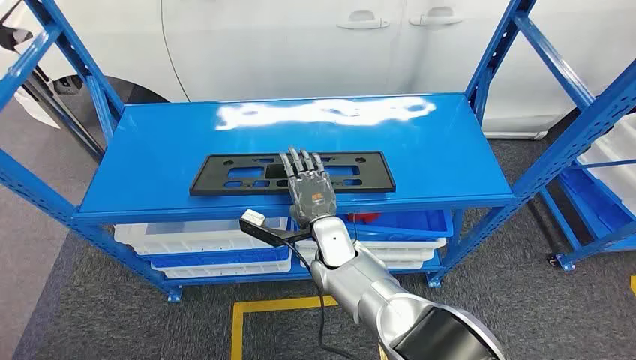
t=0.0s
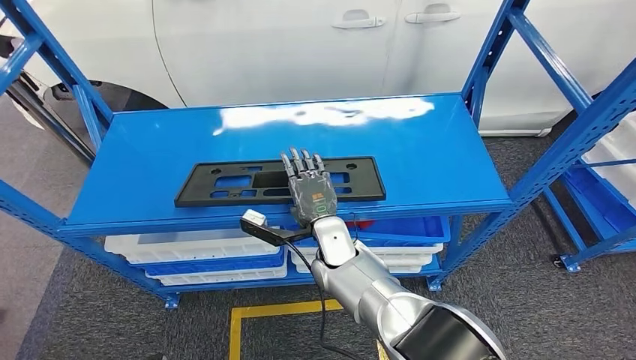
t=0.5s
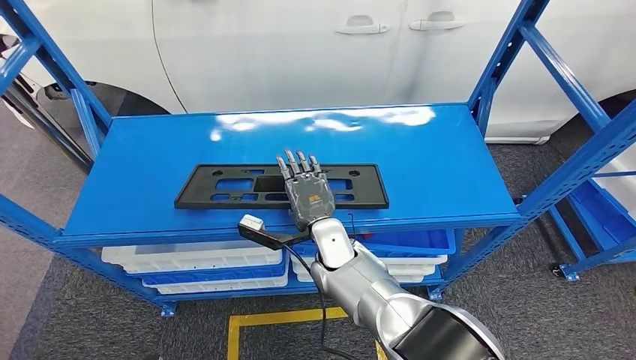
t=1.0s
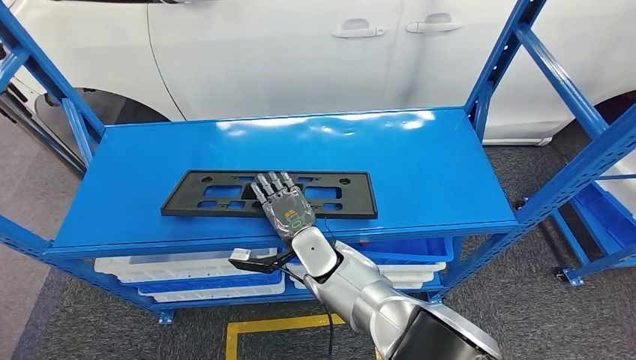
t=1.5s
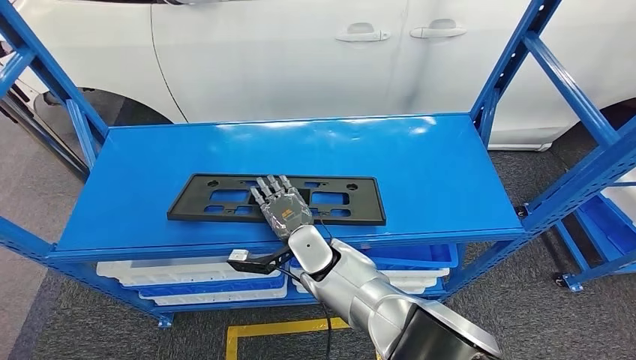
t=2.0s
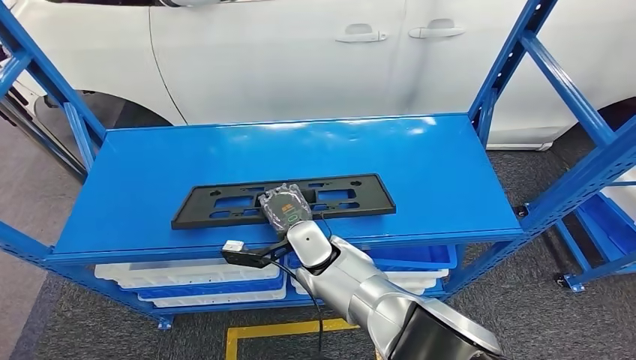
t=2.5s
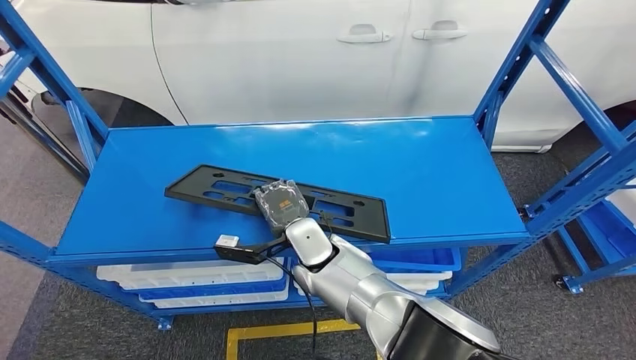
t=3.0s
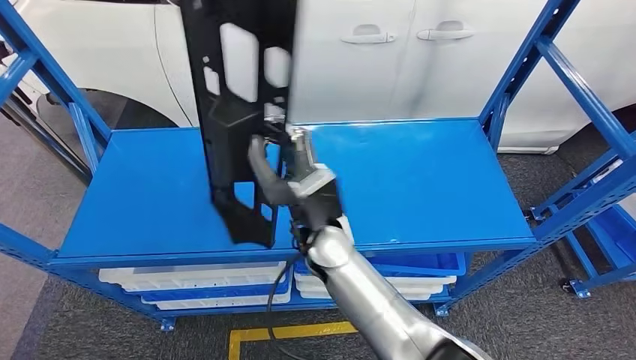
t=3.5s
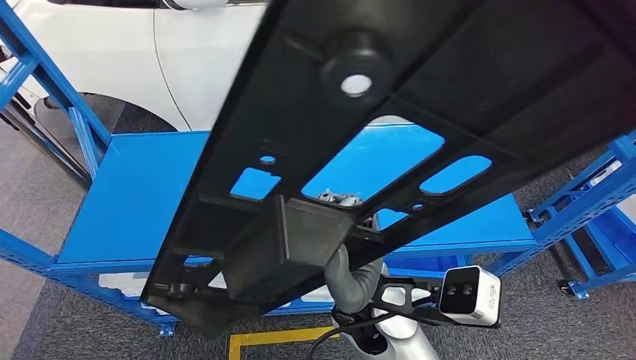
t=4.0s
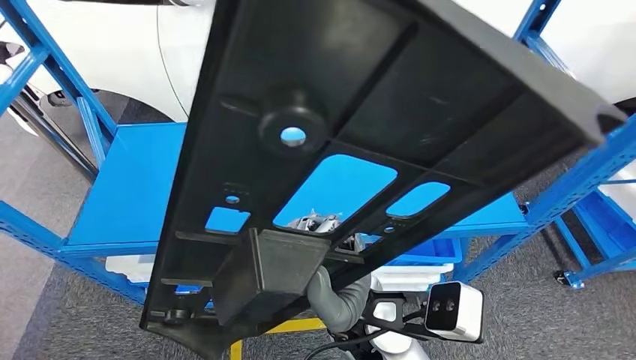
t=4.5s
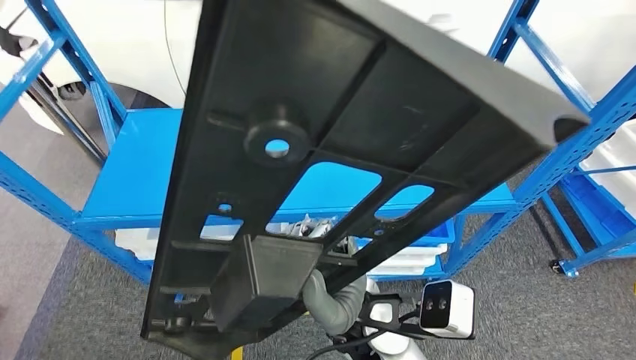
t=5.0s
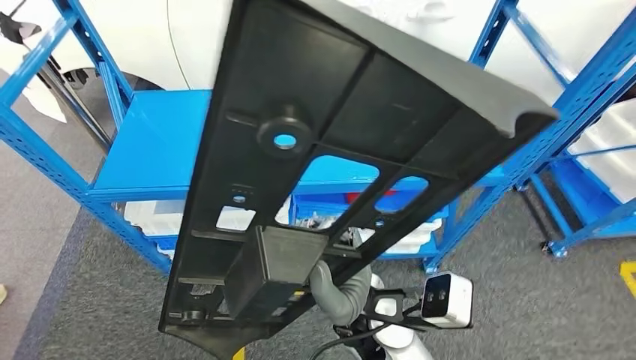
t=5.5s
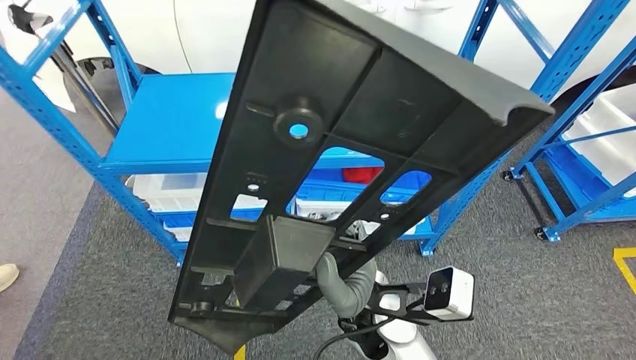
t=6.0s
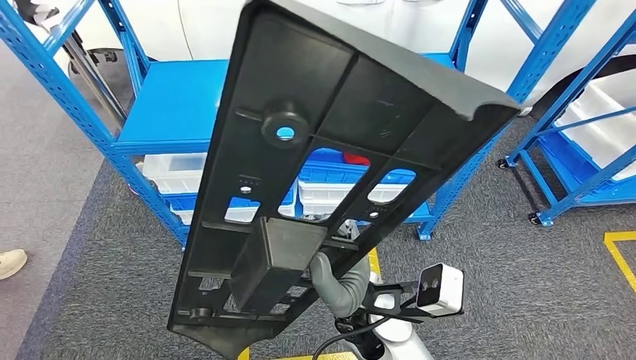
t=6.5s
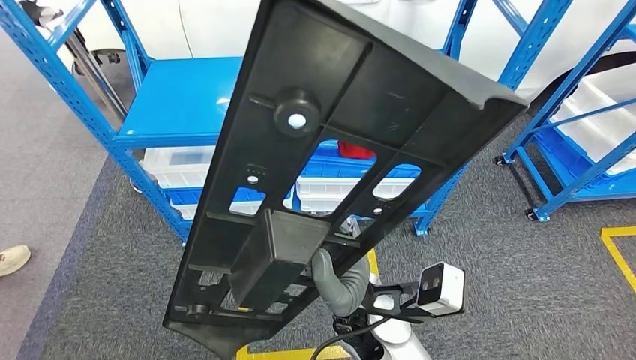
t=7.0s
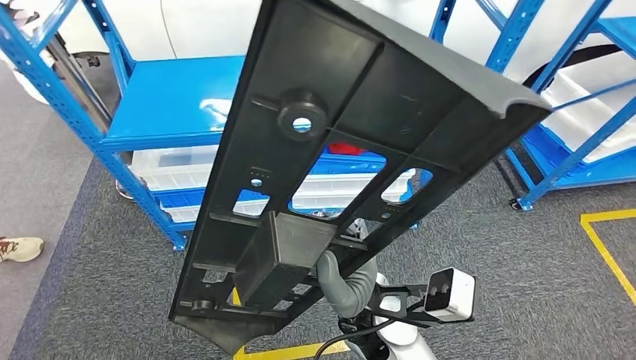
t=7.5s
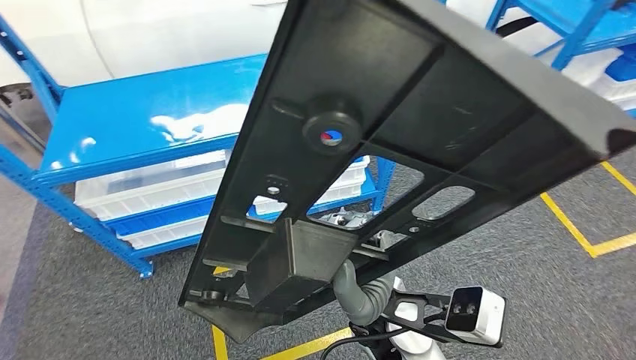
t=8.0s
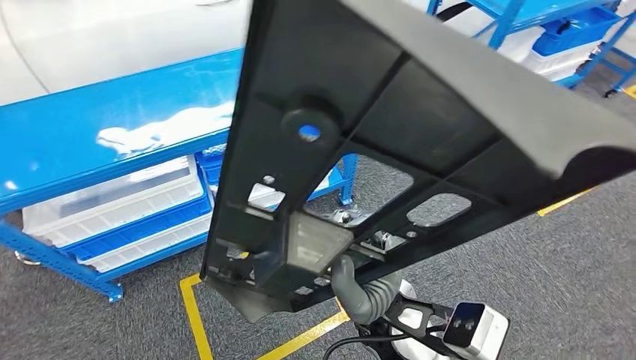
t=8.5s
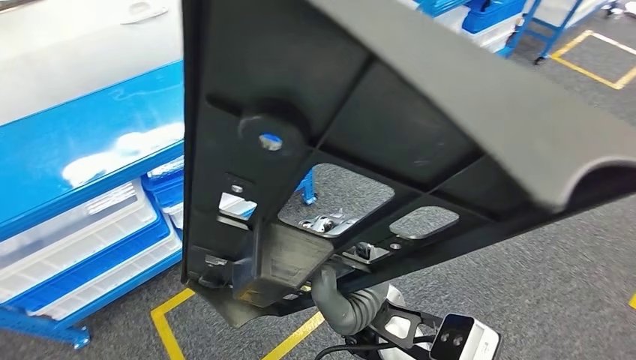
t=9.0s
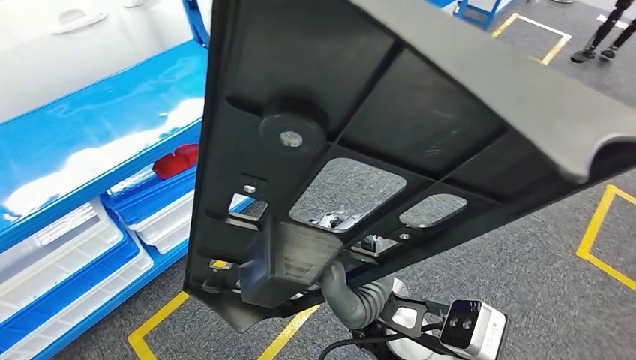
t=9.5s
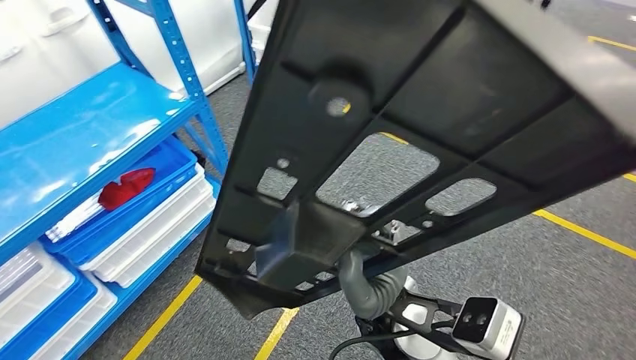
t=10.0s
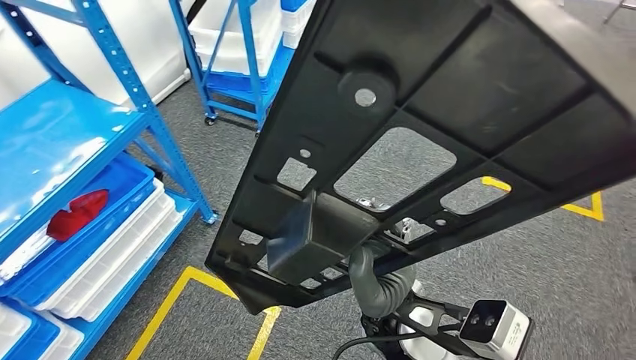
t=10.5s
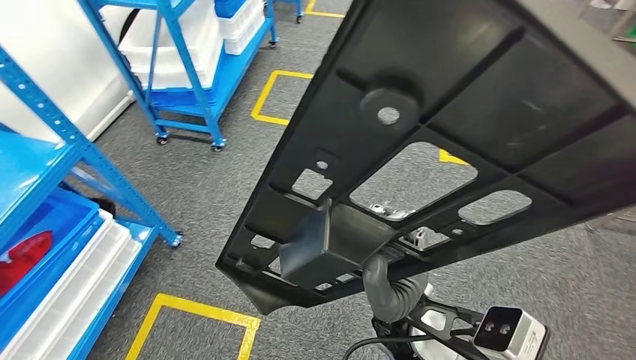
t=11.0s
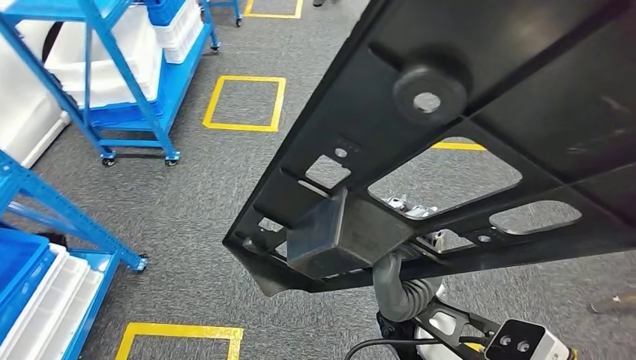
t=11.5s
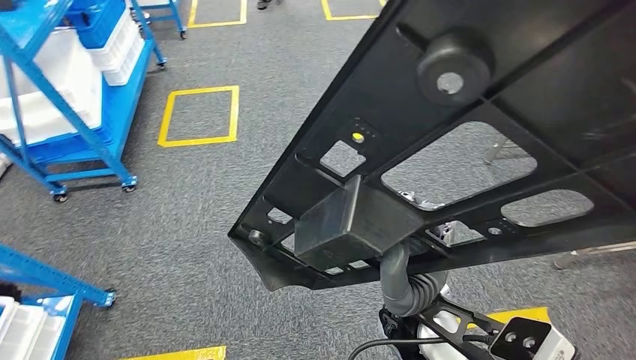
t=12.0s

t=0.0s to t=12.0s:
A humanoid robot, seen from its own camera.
Step, t=0.0s to t=3.5s: Pick up the large material from the shelf.

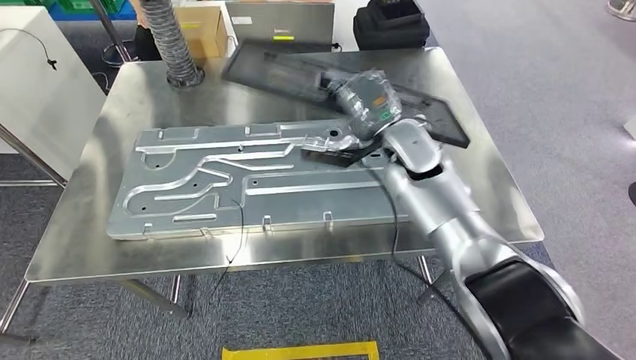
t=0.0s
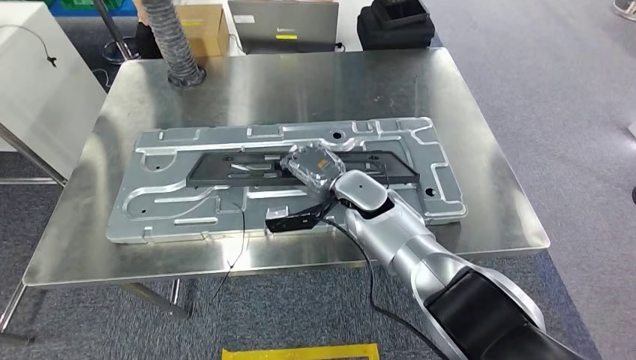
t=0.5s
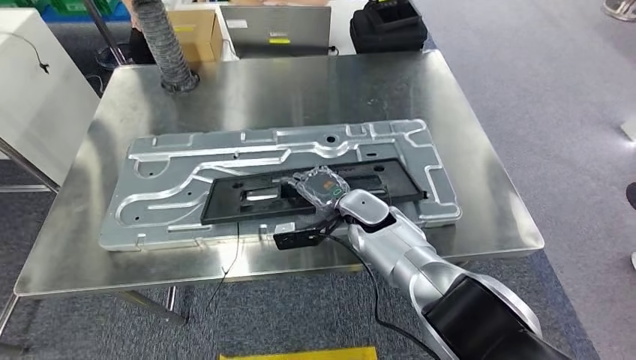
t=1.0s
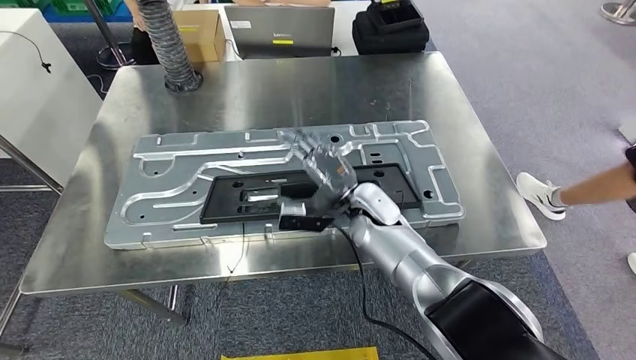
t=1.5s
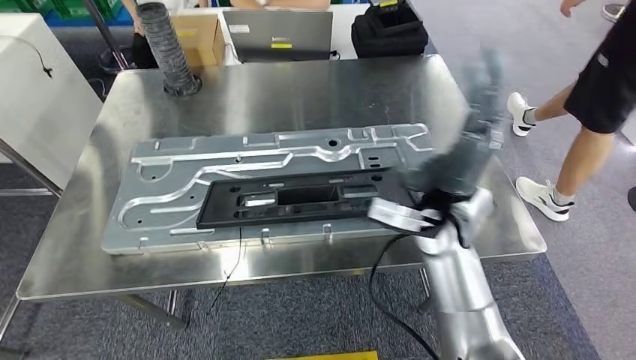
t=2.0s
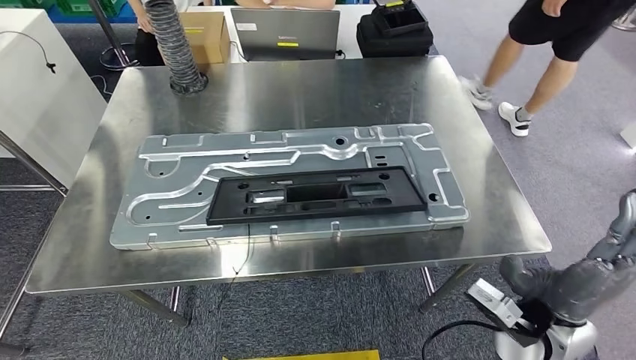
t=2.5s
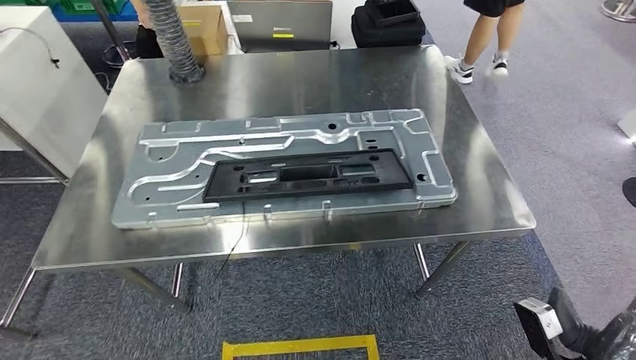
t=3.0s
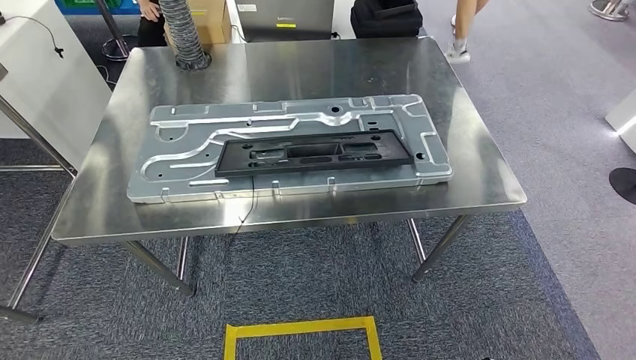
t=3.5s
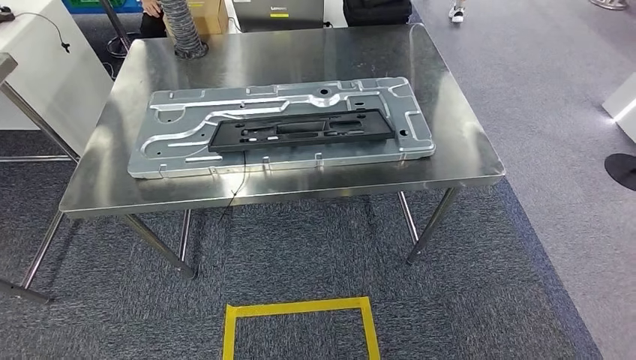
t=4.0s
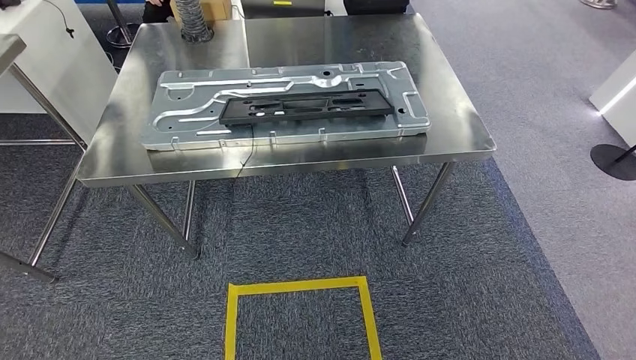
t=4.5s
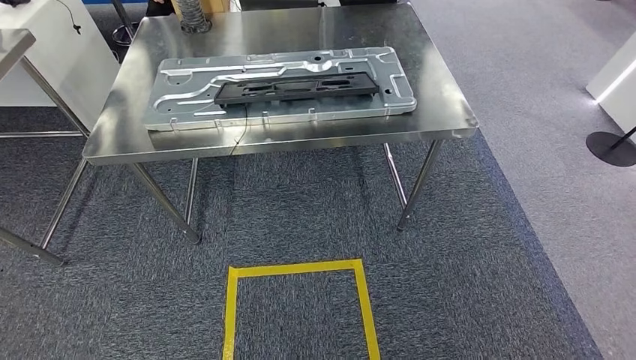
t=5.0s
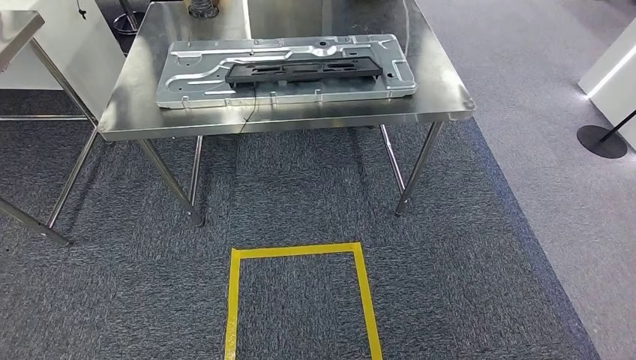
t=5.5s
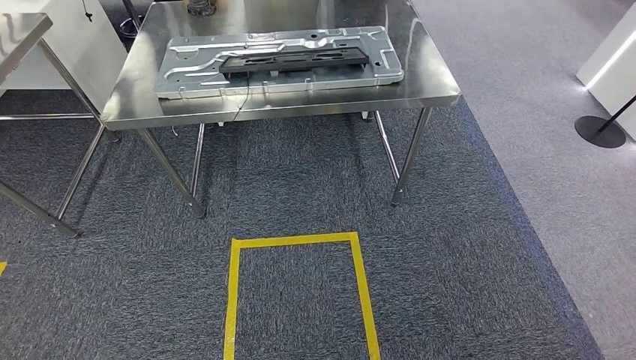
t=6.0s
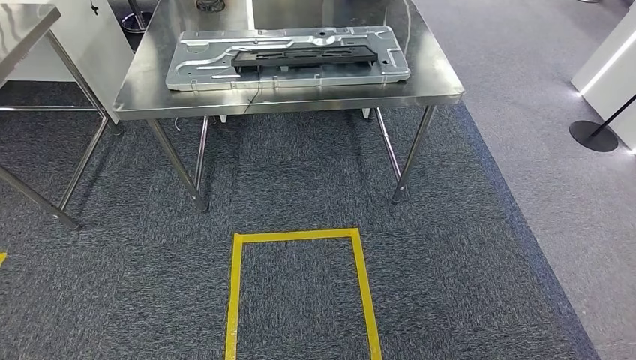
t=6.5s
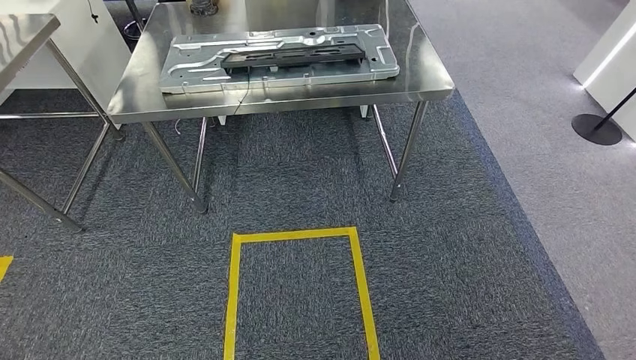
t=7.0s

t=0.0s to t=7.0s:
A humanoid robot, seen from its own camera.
Step, t=0.5s to t=3.0s: Insert the large material into the corresponding hole on the workbench.
Step, t=3.5s to t=7.0s: Move to the initial position of the shelf.

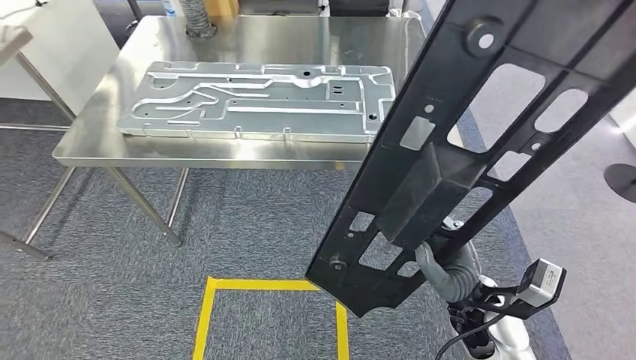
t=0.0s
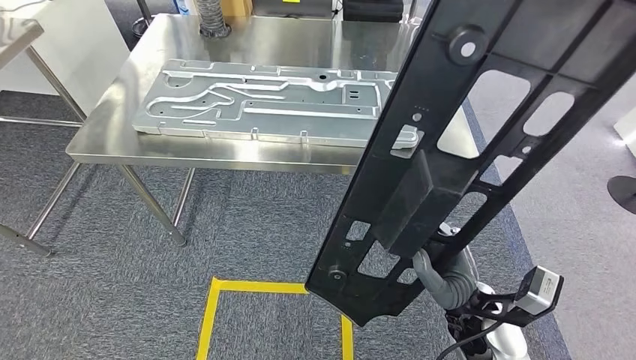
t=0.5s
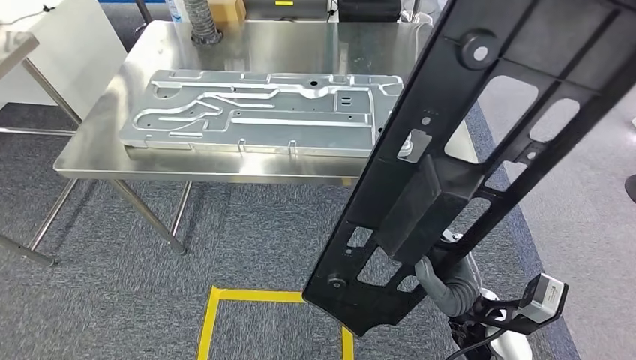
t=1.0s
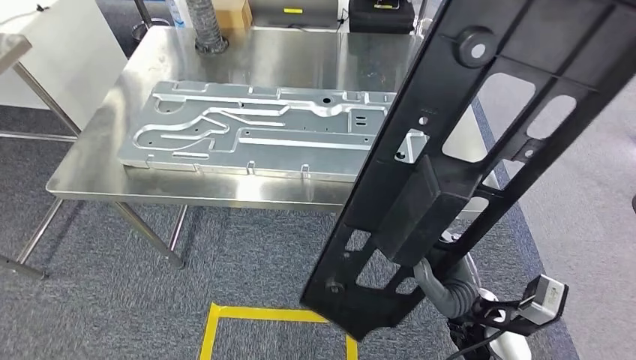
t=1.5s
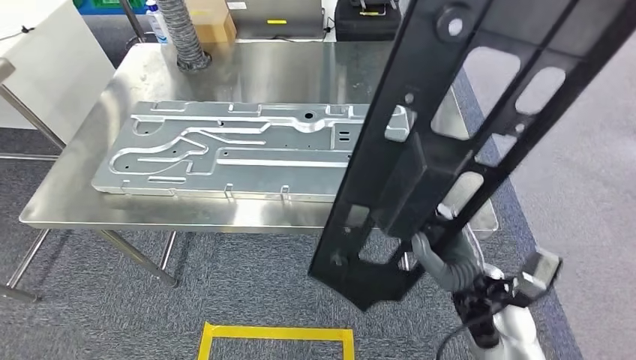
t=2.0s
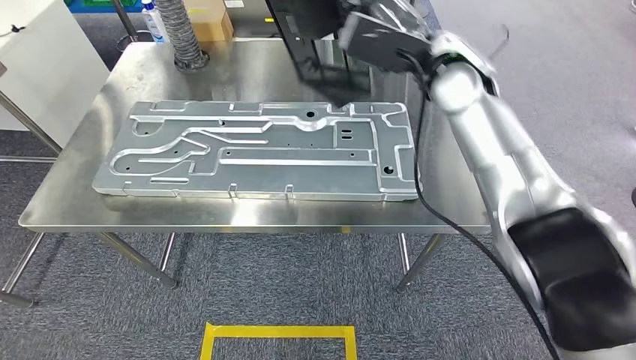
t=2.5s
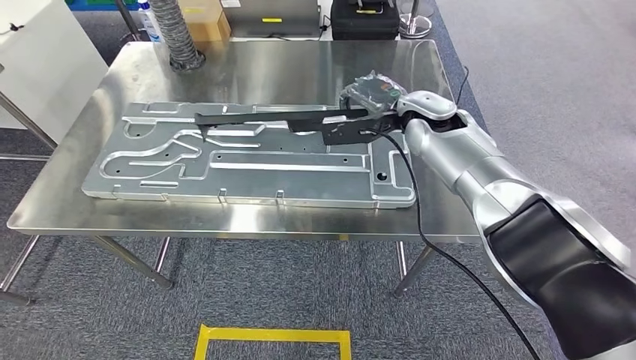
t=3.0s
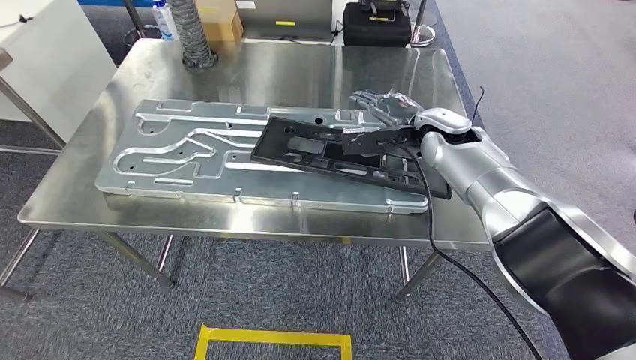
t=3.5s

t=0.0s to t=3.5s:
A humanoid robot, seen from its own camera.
Step, t=0.0s to t=2.5s: Move the large material to the front of the workbench.
